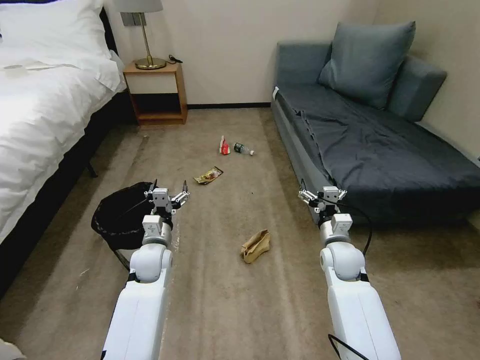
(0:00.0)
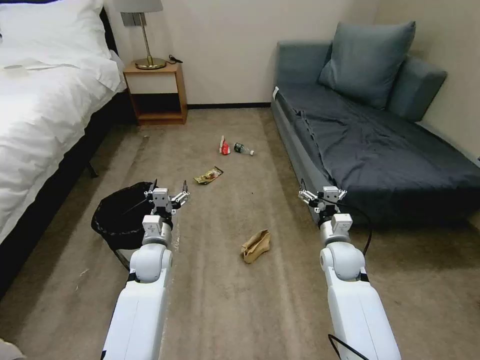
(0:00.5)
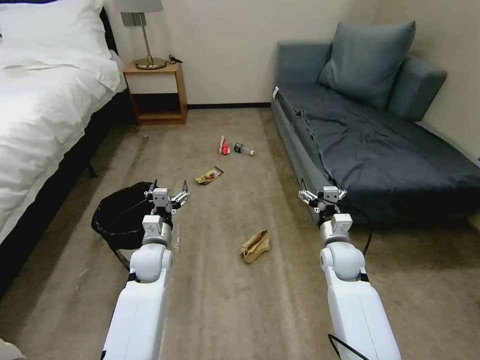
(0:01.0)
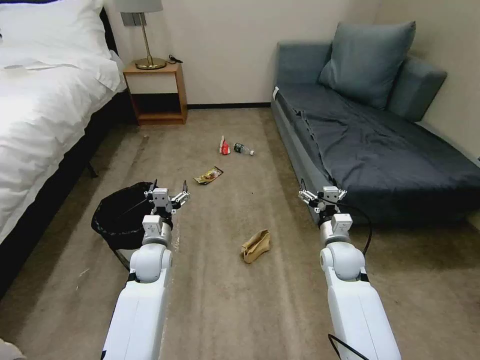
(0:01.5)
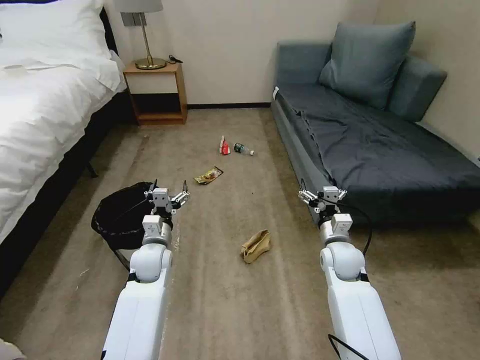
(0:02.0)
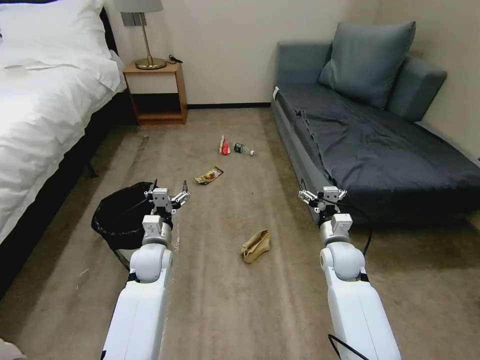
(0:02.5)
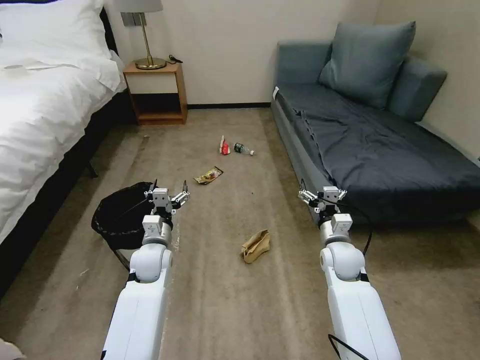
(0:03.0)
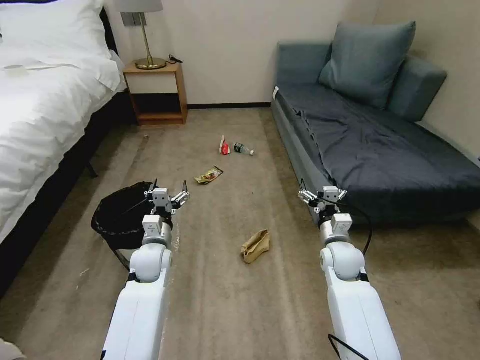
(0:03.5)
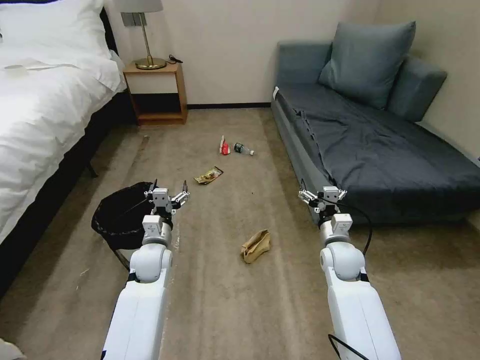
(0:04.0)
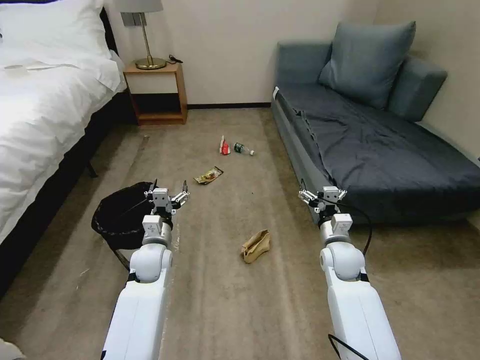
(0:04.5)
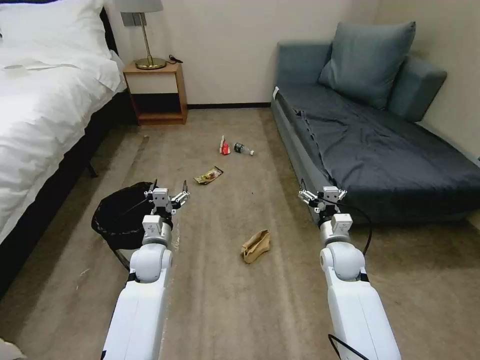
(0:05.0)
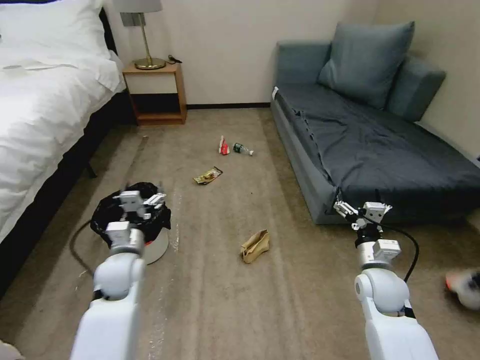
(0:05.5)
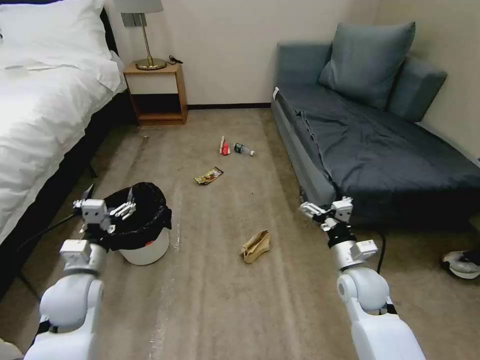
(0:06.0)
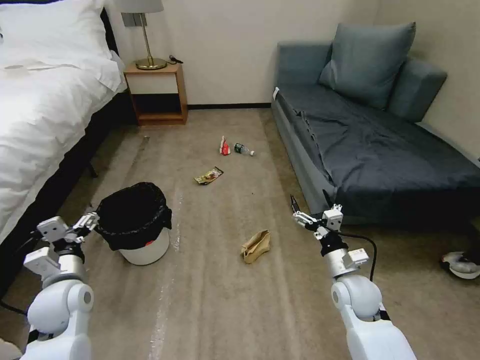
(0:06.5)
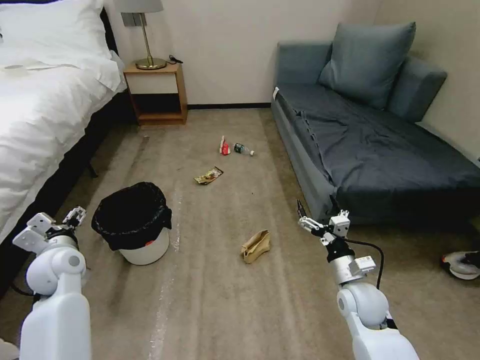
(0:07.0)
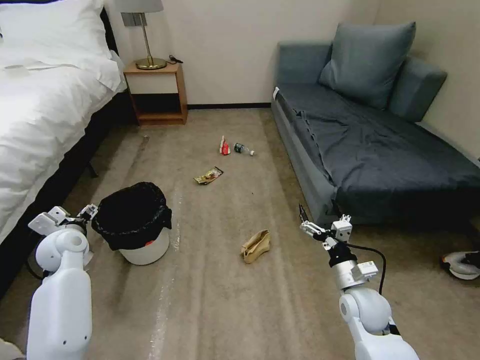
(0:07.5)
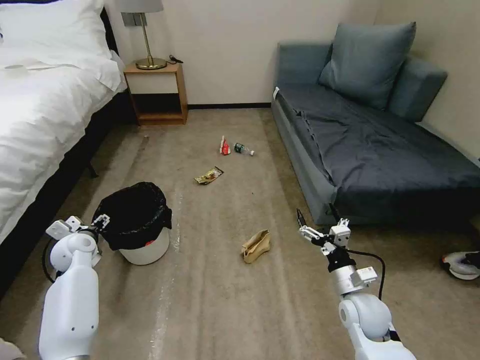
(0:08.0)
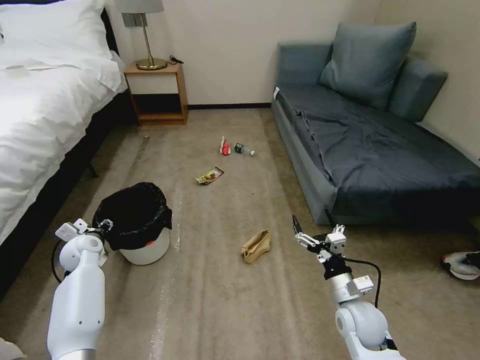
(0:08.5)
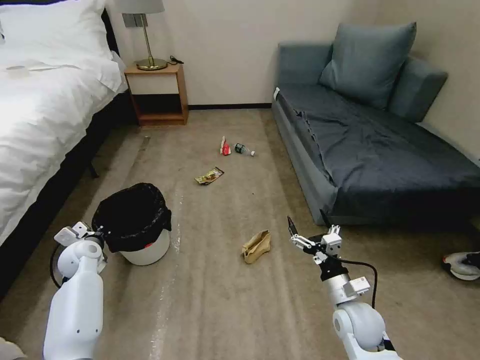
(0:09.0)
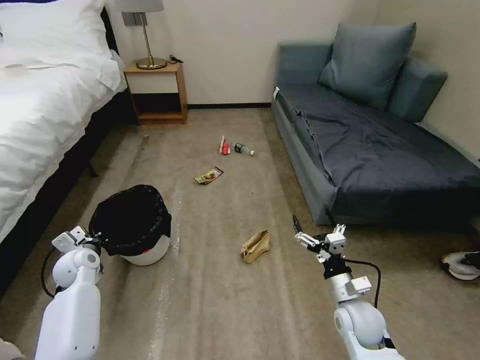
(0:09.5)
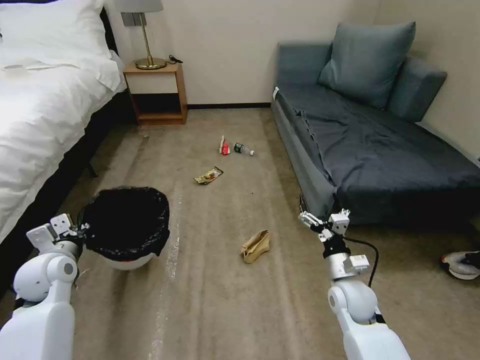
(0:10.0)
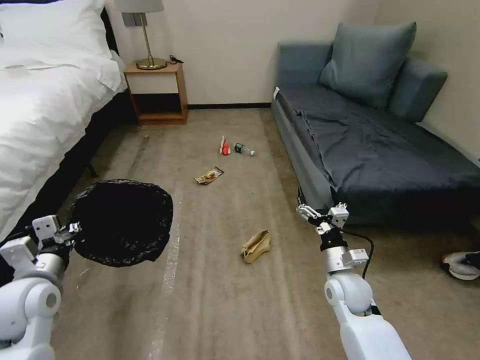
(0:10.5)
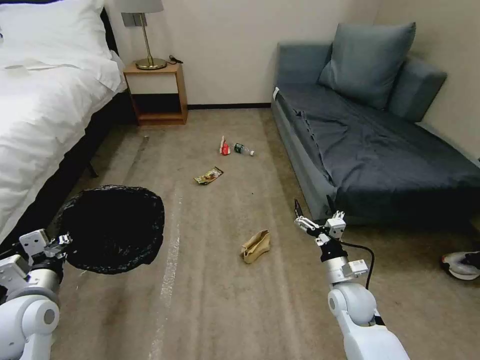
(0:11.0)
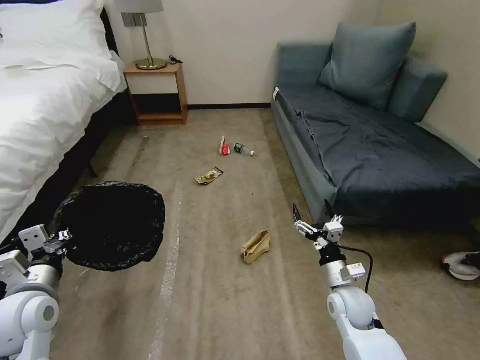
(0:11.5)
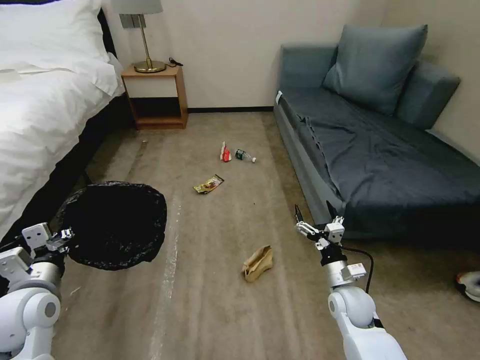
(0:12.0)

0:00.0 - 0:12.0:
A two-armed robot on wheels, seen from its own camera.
Task of the whole recording: Pick up the trash bin, then pick up the garbage on the floor and place it into the trash bin.
0:02.0 - 0:04.0: Neither gripper changes place.
0:04.0 - 0:06.0: The right gripper is displaced backward by roughly 5 cm. The left gripper moves backward, to the left and upward, some 15 cm.
0:06.0 - 0:08.0: The right gripper moves approximately 5 cm. Meanwhile the left gripper heads forward and to the left, covering some 15 cm.
0:08.0 - 0:10.0: The left gripper goes about 10 cm backward and upward, and closes up.
0:10.0 - 0:12.0: The left gripper goes some 10 cm backward.

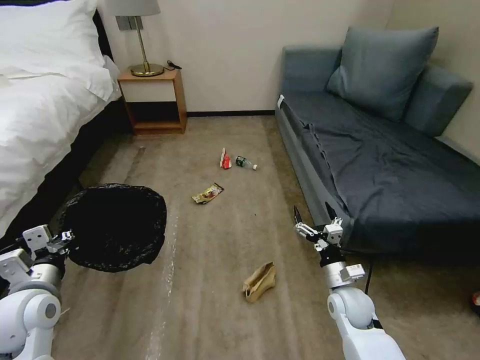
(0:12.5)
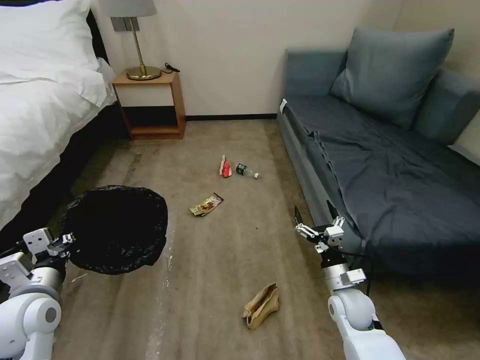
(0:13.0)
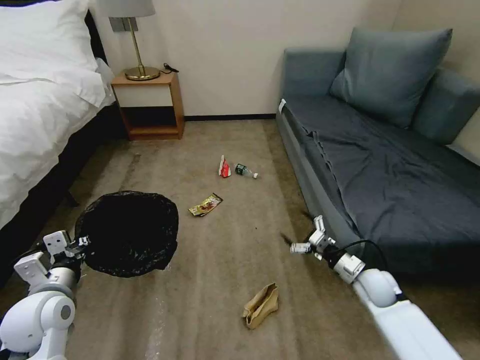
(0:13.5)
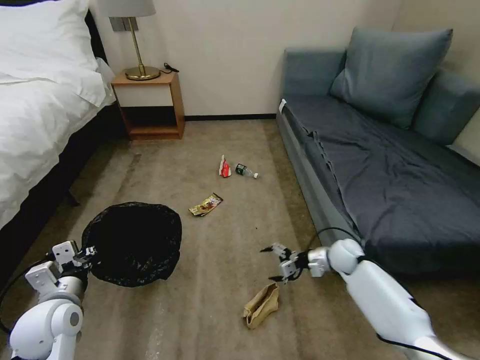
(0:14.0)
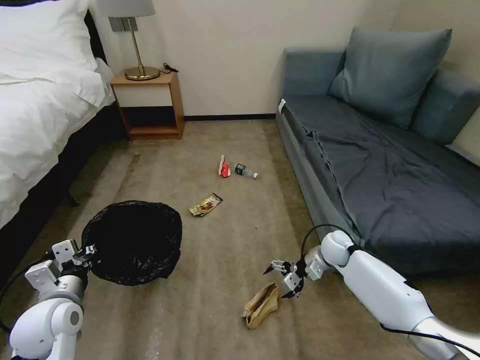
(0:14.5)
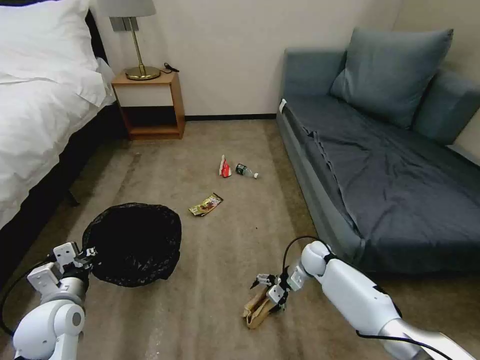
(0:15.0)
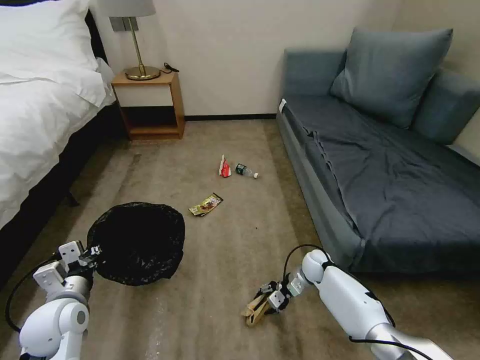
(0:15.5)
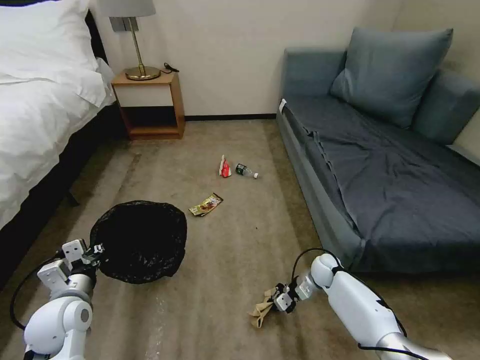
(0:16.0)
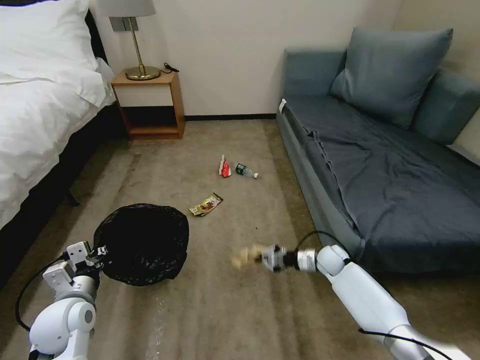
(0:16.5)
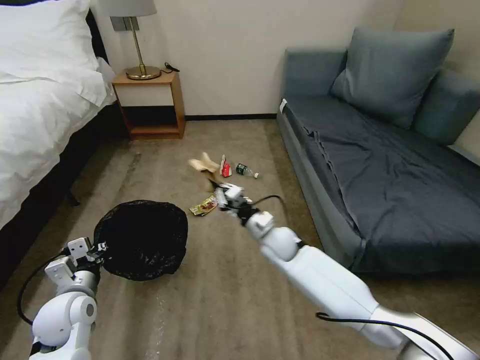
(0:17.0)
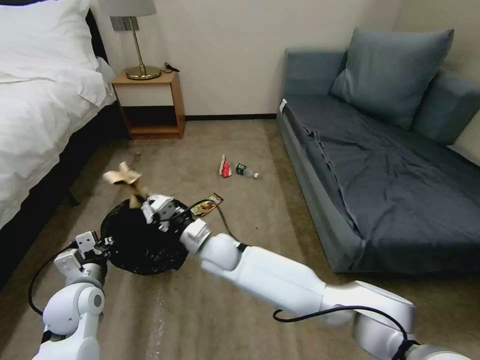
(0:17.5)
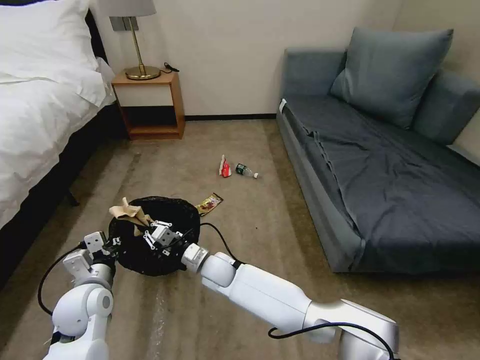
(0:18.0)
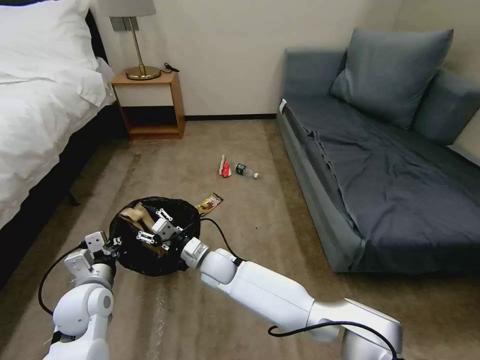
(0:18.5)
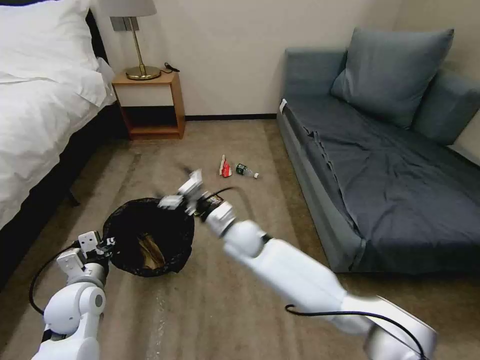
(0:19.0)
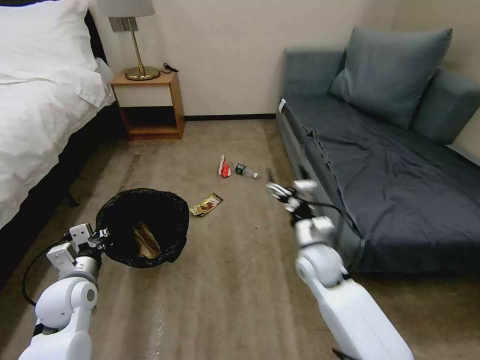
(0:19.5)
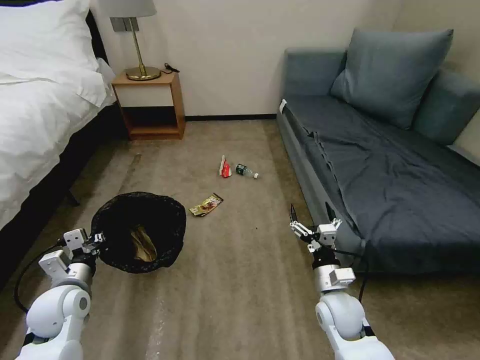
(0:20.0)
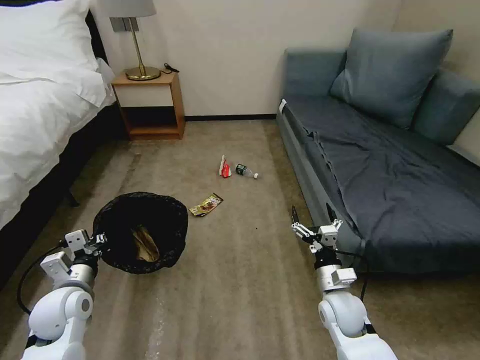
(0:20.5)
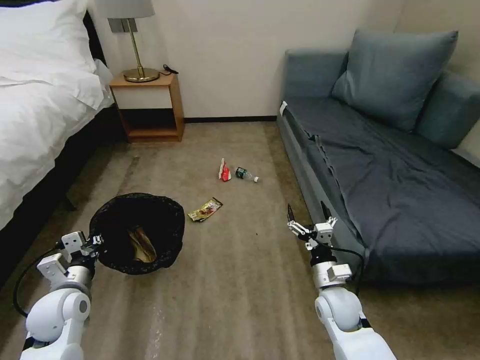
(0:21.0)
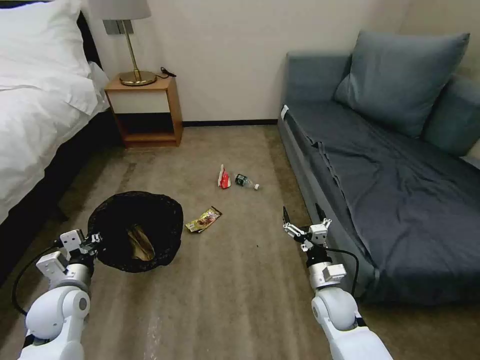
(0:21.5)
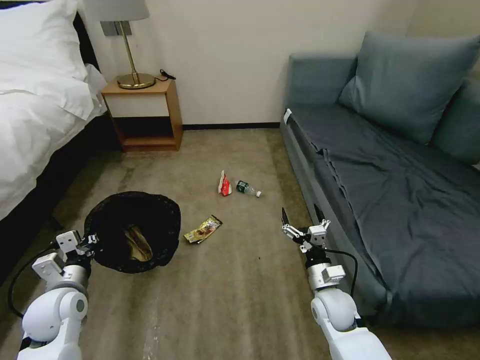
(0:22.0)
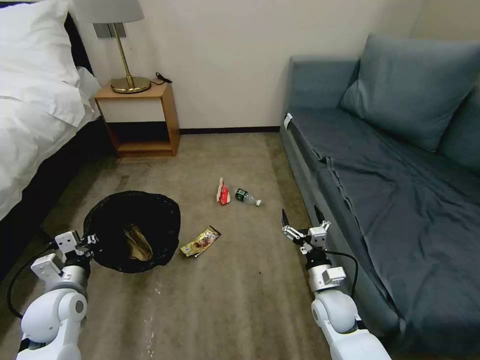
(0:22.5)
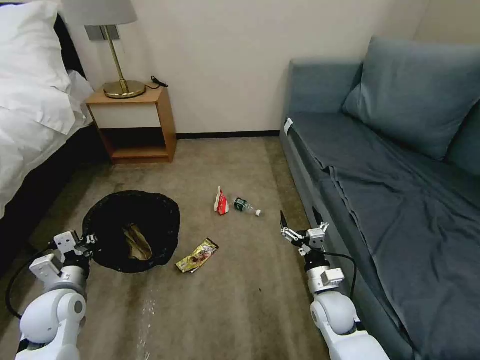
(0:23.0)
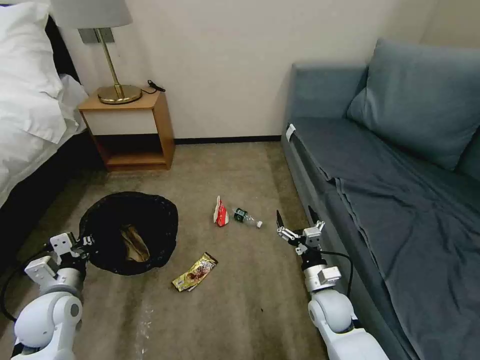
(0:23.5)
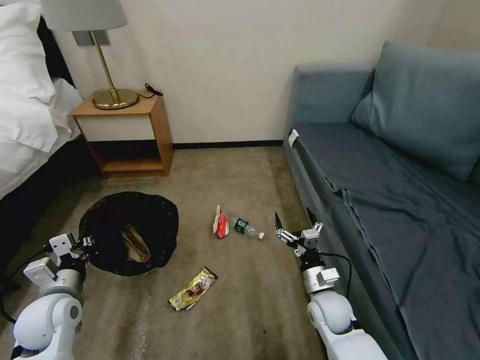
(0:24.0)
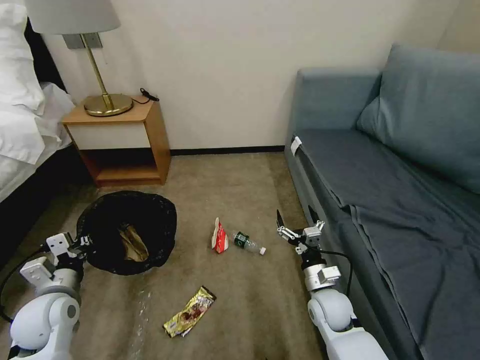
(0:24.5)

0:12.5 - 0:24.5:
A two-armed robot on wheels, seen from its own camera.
Task of the whole recording: Pick up the trash bin, then pick up the garbage on the floor and place it into the trash bin.
0:12.5 - 0:14.5: The right gripper is displaced forward by about 15 cm.
0:14.5 - 0:16.5: The right gripper moves downward, some 5 cm, and closes.
0:16.5 - 0:18.5: The right gripper goes roughly 35 cm to the left, and opens up.
0:18.5 - 0:20.5: The right gripper shifts roughly 30 cm to the right.

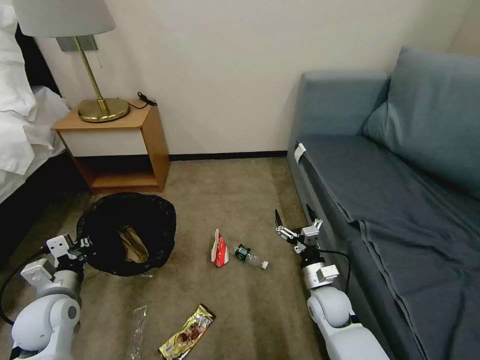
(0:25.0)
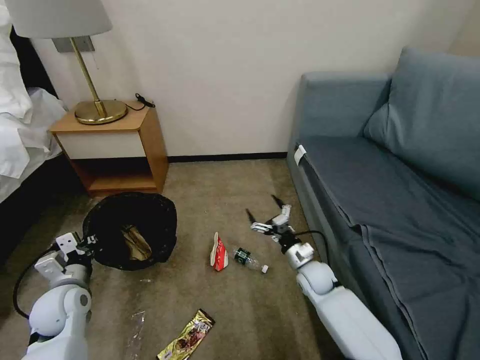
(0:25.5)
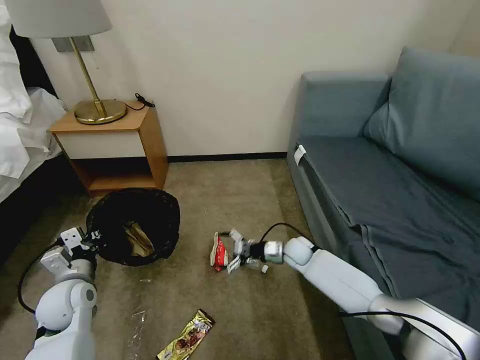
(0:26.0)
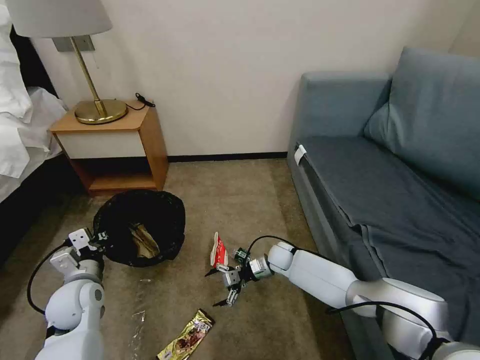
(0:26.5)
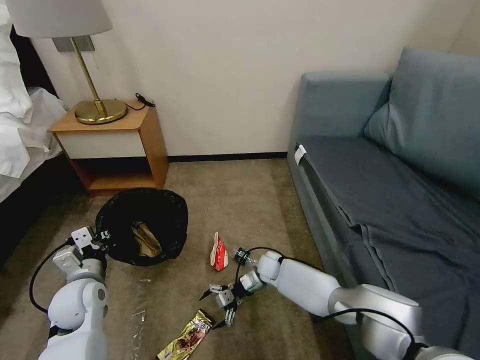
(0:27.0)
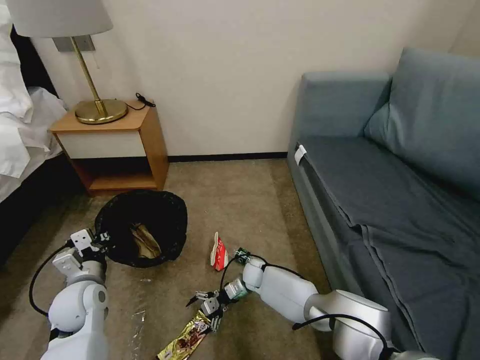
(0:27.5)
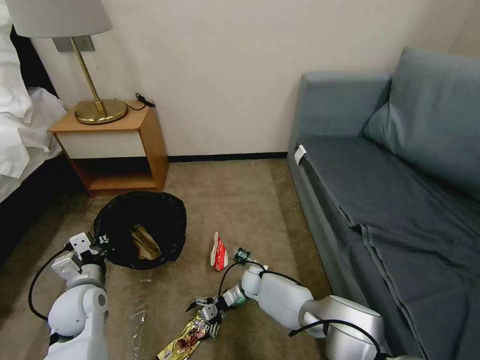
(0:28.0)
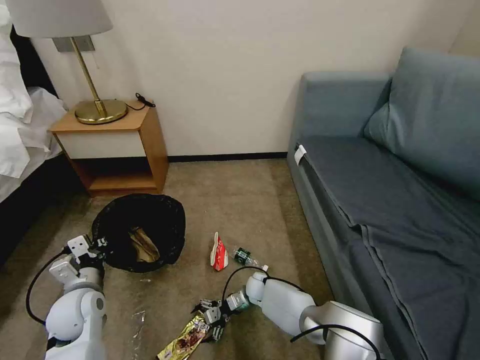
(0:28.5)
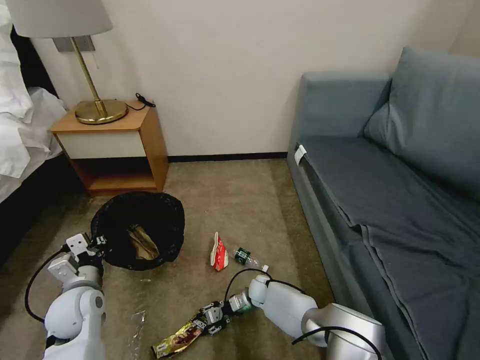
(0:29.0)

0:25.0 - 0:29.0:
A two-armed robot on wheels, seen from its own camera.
Task of the whole recording: Pick up the trash bin, then pick up the garbage on the floor and place it into the trash bin.
0:25.0 - 0:27.0: The right gripper heads forward, to the left and downward, covering some 20 cm; the left gripper moves approximately 5 cm.
0:27.0 - 0:29.0: The right gripper moves downward and backward, approximately 10 cm, and closes its fingers.
